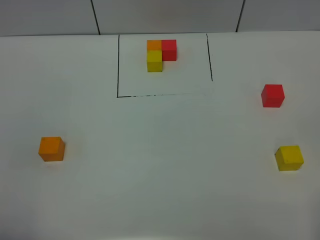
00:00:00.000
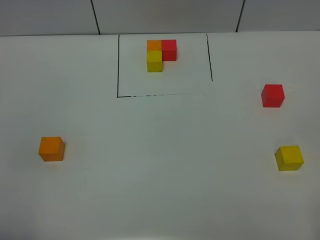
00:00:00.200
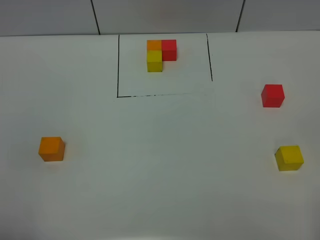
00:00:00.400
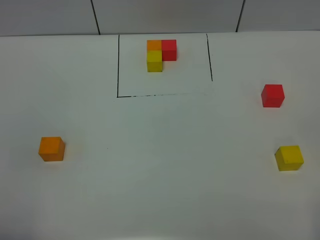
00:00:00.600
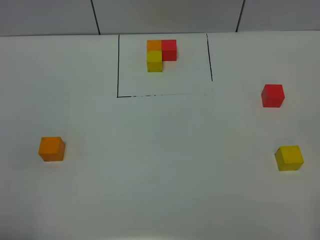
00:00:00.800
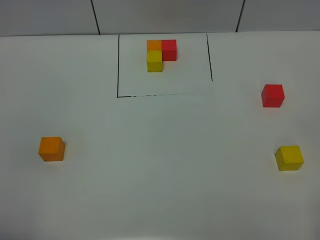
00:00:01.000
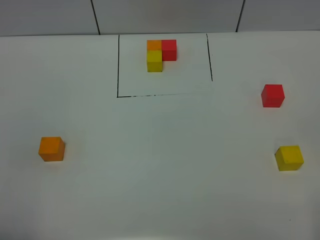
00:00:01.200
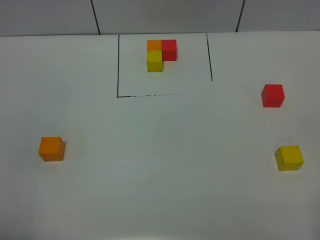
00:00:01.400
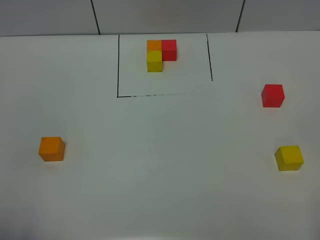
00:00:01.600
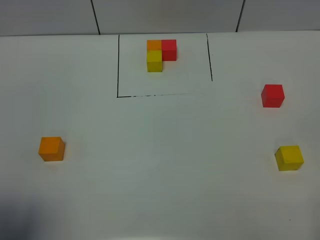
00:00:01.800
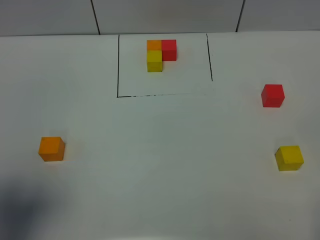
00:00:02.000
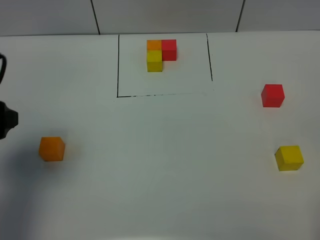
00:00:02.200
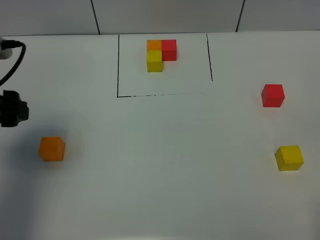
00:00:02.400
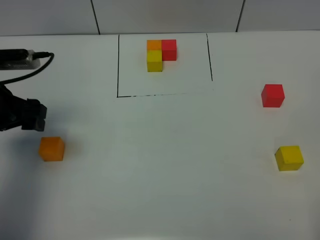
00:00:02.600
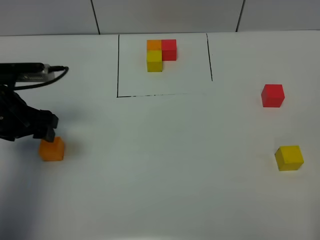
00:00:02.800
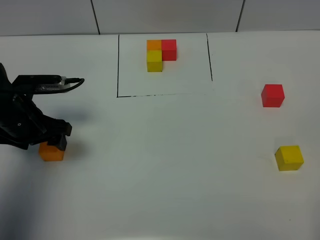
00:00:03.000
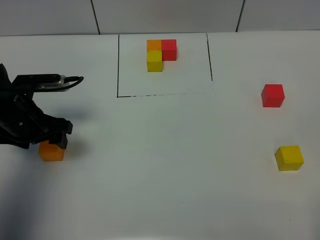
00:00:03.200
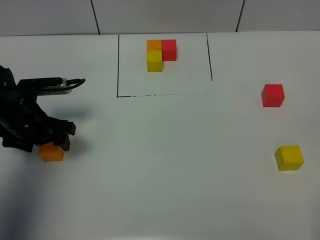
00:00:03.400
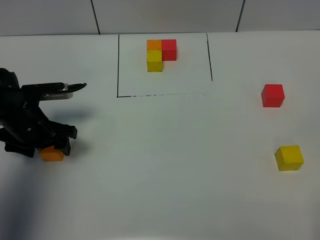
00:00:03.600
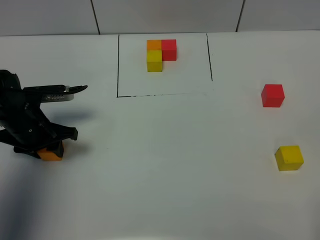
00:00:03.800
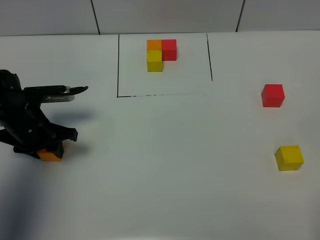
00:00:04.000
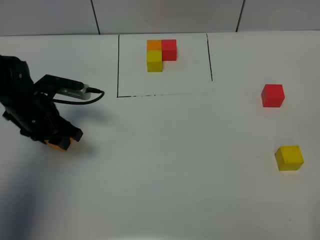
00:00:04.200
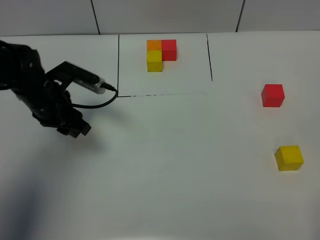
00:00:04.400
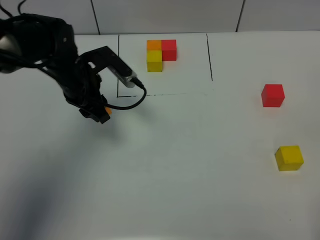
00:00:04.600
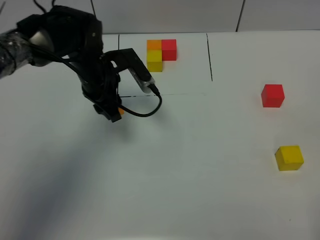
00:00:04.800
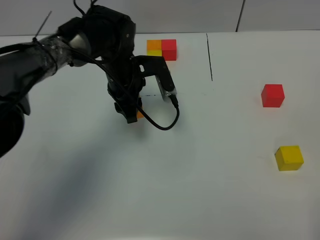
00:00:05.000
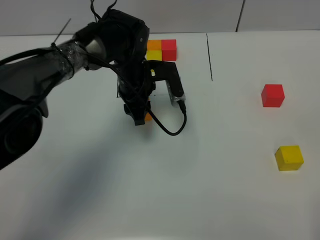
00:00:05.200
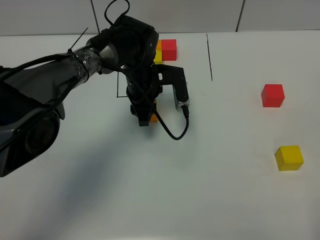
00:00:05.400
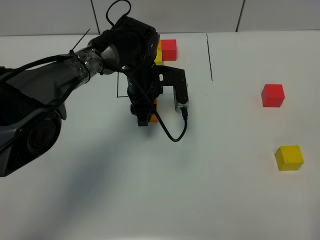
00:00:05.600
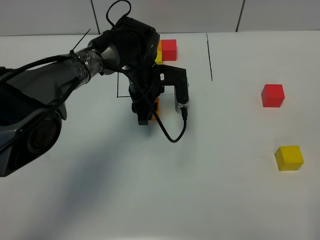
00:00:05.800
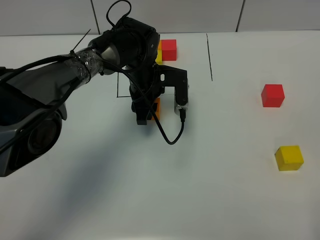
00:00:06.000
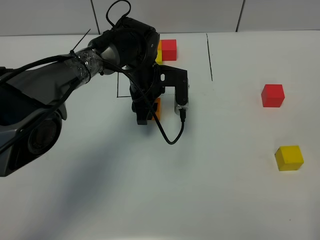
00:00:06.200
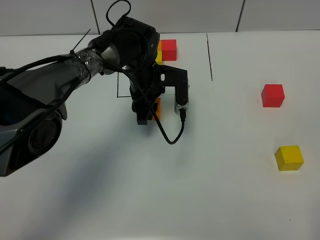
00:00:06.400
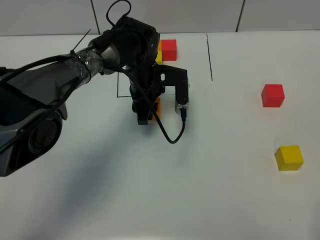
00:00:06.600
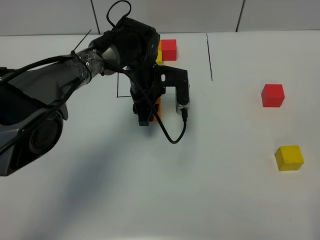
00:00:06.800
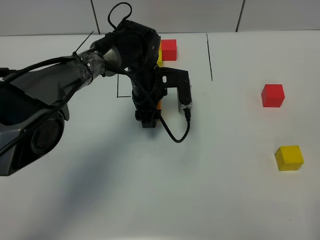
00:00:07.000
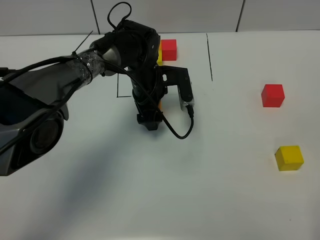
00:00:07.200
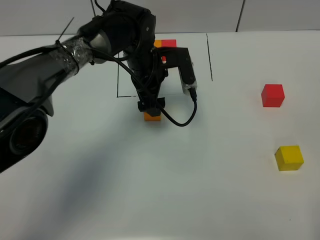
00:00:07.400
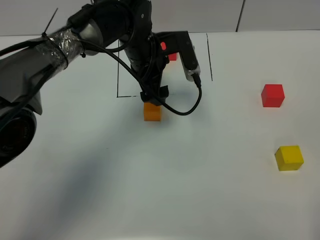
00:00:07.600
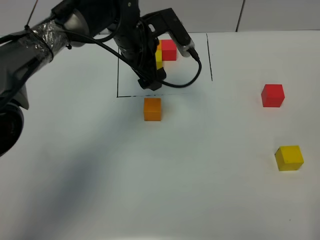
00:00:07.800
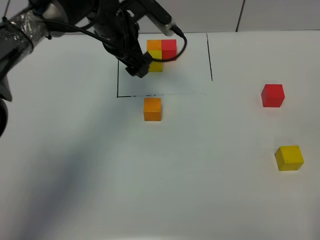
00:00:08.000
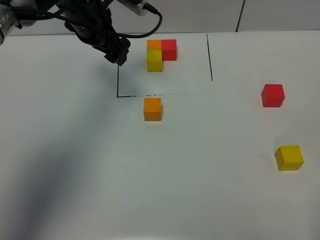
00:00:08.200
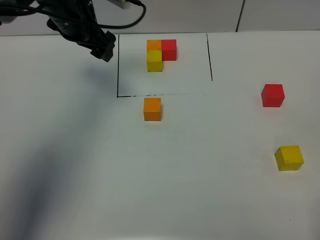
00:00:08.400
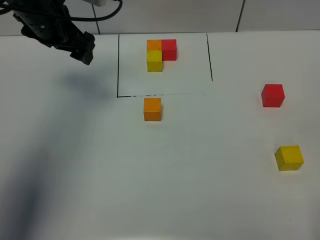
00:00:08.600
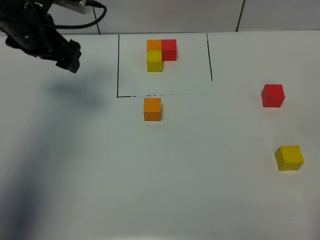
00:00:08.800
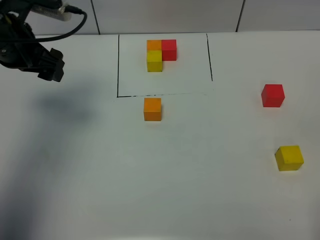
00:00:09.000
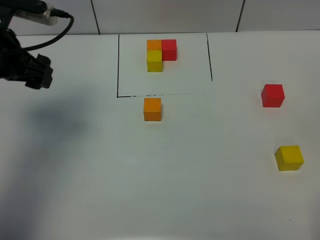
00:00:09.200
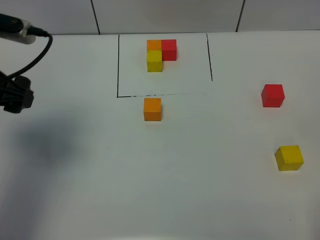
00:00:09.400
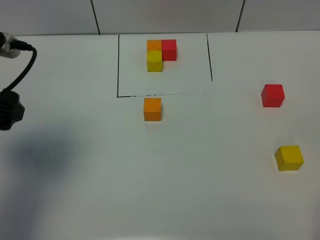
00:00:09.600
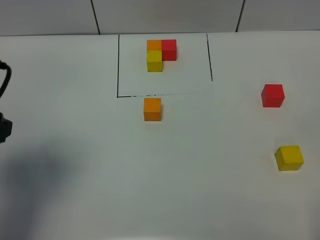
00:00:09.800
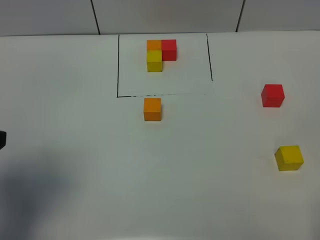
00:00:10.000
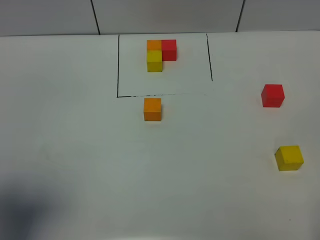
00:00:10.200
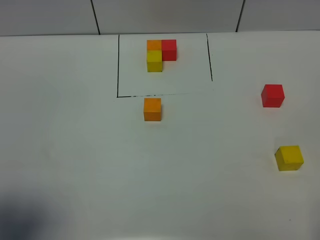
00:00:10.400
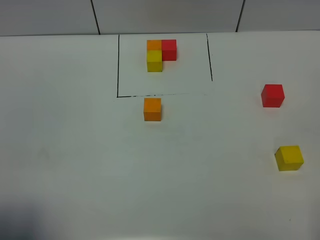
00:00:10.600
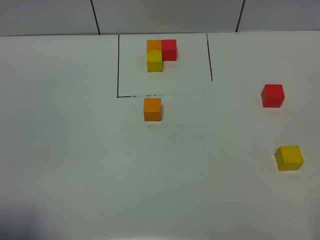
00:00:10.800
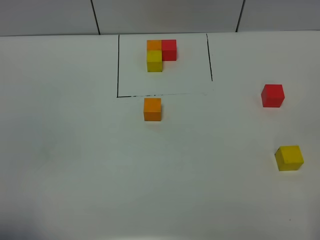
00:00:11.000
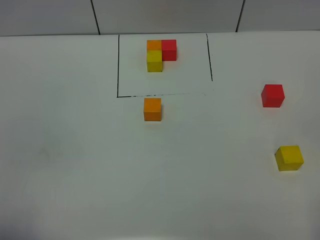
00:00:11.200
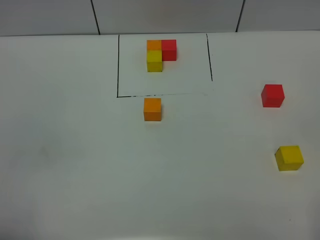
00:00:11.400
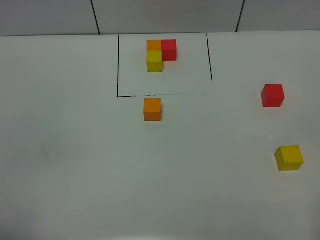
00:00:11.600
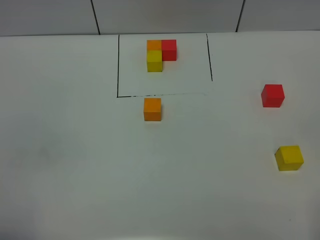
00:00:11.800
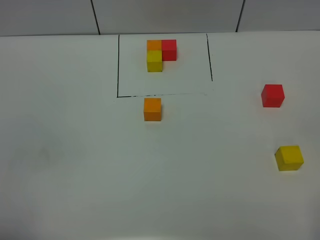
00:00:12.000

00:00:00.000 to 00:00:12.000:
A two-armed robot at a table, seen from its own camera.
Task of the whole recording: According to the building block template in front, assemble the scattered blocks together.
Step, 00:00:00.000 to 00:00:06.800: Put the orange build block in the center of the table.
00:00:01.600 to 00:00:03.000: The left gripper travels forward and downward by approximately 35 cm.
00:00:03.000 to 00:00:04.400: The left gripper travels to the right by roughly 5 cm, and closes its fingers.
00:00:04.400 to 00:00:06.000: The left gripper shifts approximately 20 cm to the right and forward.
00:00:06.000 to 00:00:07.600: The left gripper is displaced upward by roughly 10 cm, and opens up.
00:00:07.600 to 00:00:09.000: The left gripper shifts about 20 cm to the left.
00:00:09.000 to 00:00:10.400: The left gripper heads backward, covering approximately 30 cm.
00:00:10.400 to 00:00:12.000: The left gripper travels backward by roughly 10 cm.

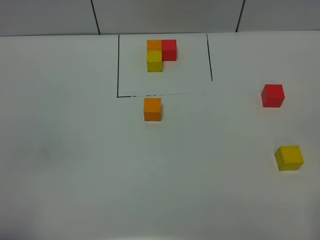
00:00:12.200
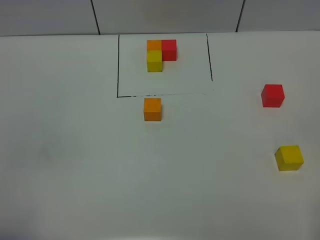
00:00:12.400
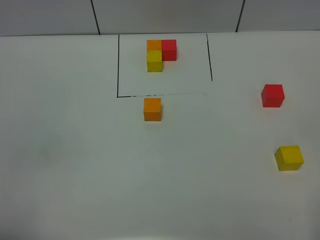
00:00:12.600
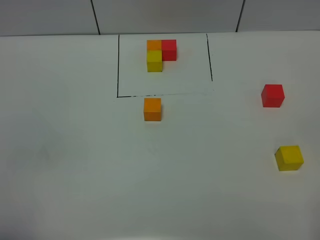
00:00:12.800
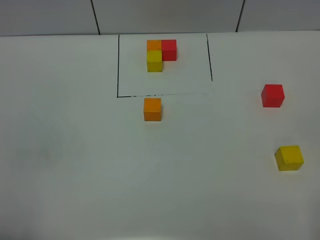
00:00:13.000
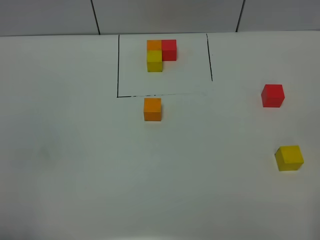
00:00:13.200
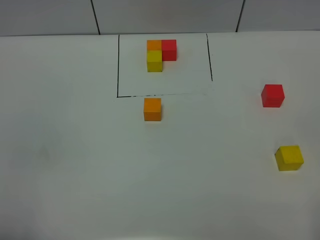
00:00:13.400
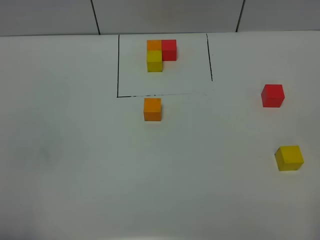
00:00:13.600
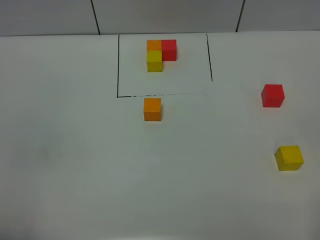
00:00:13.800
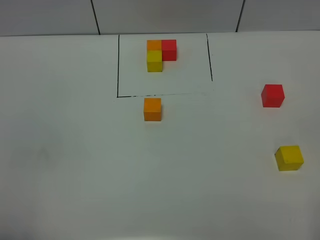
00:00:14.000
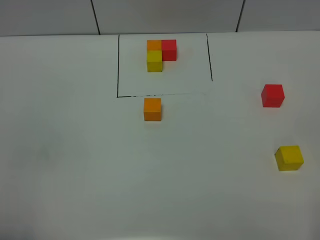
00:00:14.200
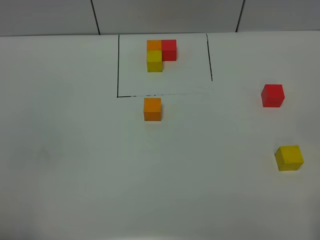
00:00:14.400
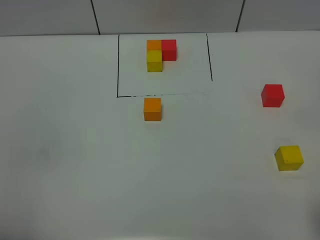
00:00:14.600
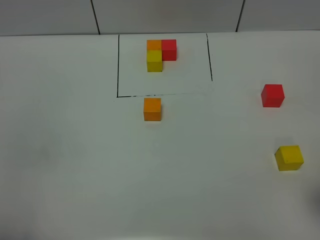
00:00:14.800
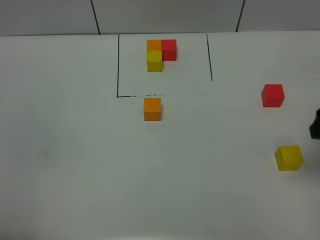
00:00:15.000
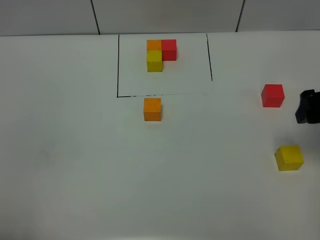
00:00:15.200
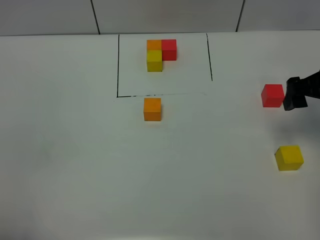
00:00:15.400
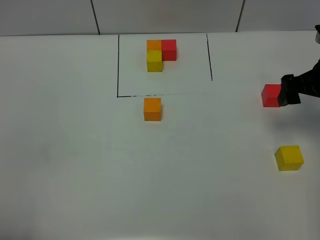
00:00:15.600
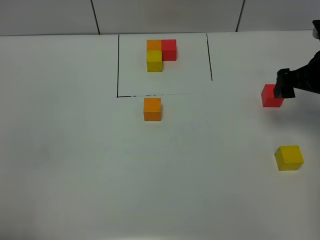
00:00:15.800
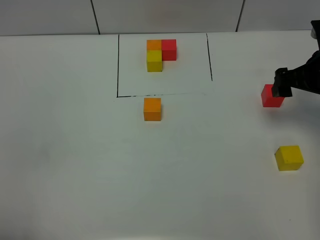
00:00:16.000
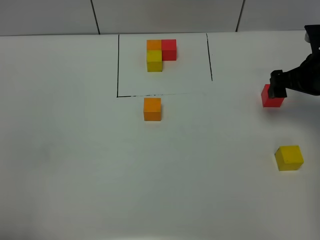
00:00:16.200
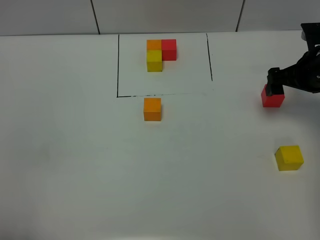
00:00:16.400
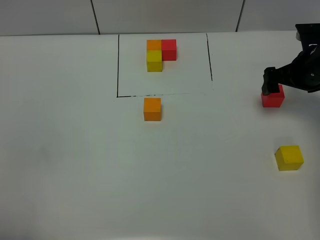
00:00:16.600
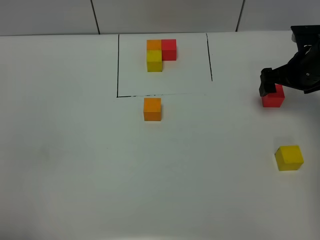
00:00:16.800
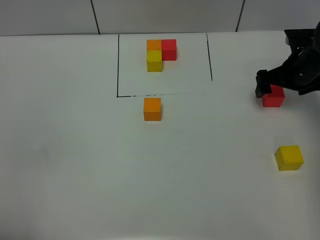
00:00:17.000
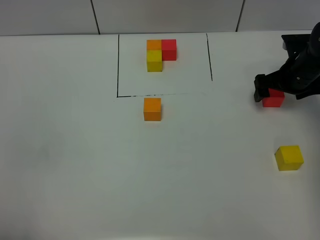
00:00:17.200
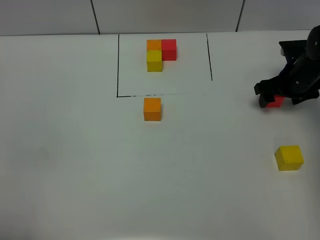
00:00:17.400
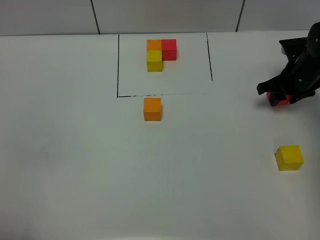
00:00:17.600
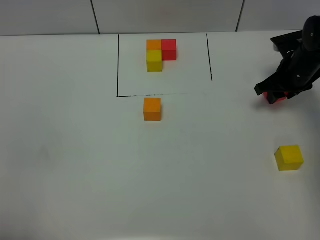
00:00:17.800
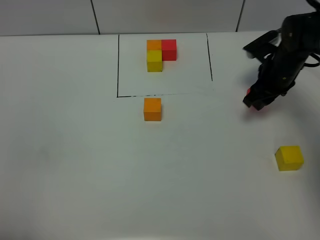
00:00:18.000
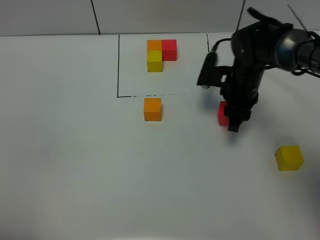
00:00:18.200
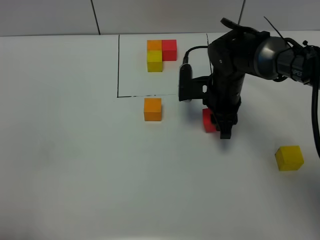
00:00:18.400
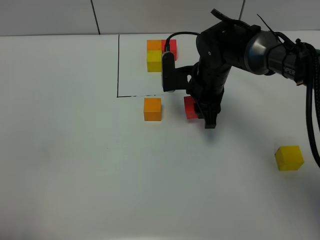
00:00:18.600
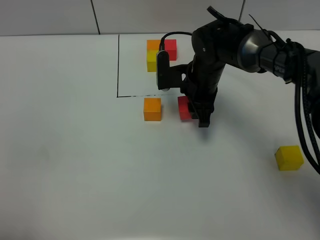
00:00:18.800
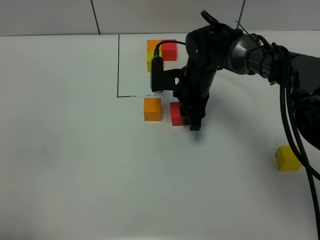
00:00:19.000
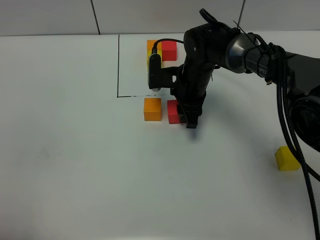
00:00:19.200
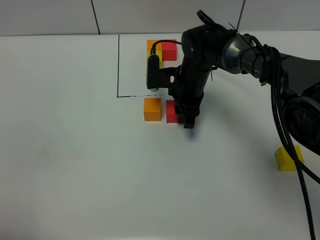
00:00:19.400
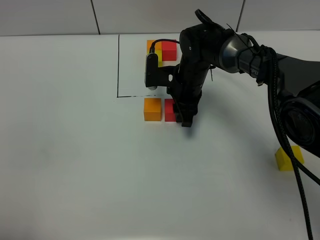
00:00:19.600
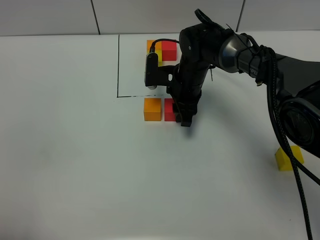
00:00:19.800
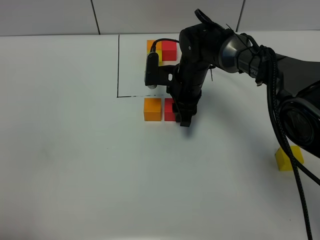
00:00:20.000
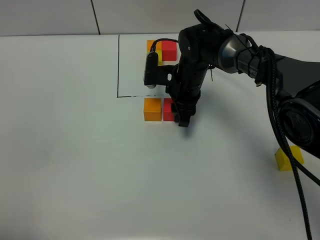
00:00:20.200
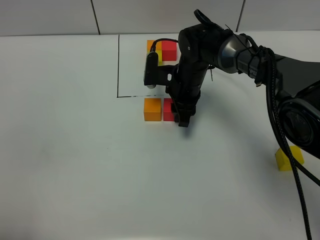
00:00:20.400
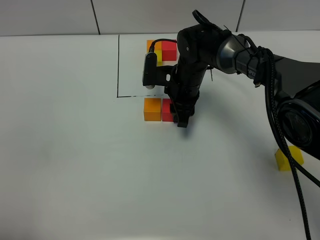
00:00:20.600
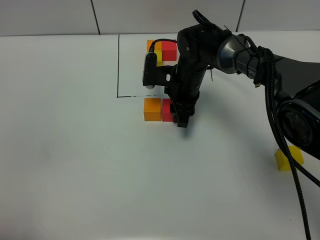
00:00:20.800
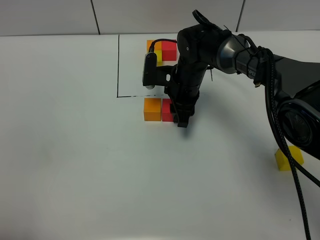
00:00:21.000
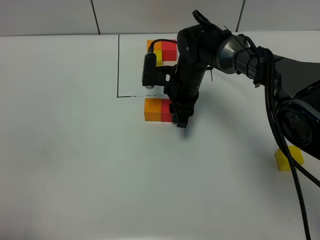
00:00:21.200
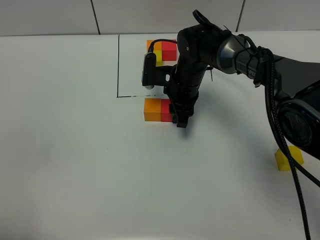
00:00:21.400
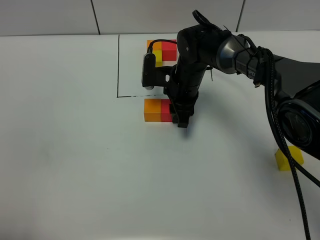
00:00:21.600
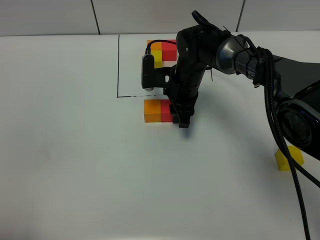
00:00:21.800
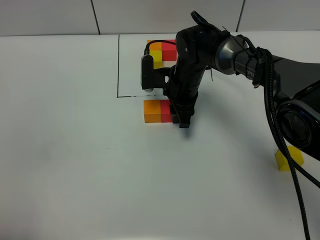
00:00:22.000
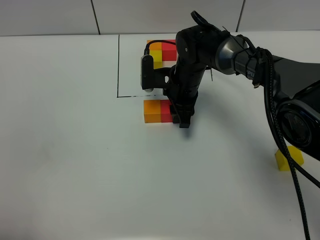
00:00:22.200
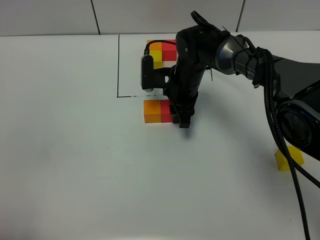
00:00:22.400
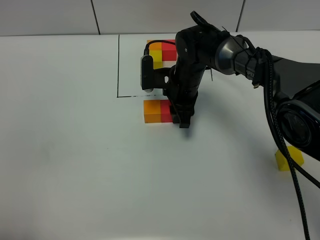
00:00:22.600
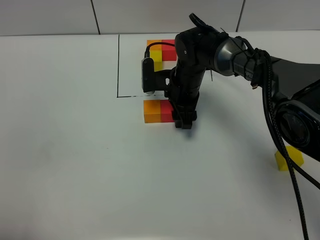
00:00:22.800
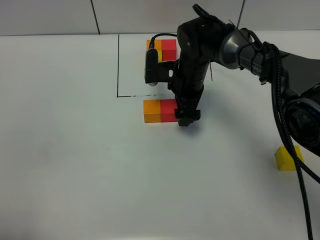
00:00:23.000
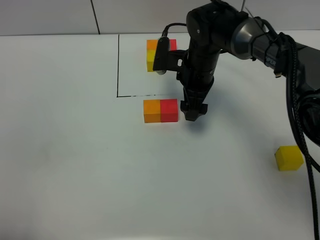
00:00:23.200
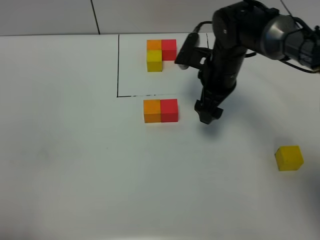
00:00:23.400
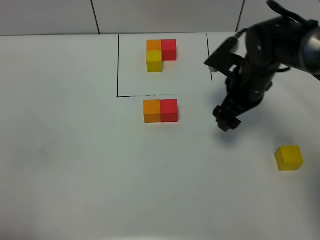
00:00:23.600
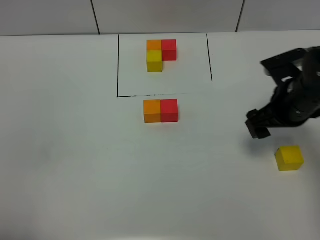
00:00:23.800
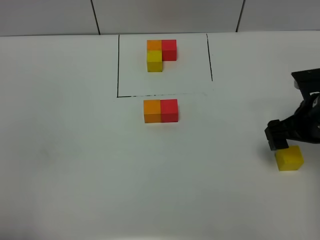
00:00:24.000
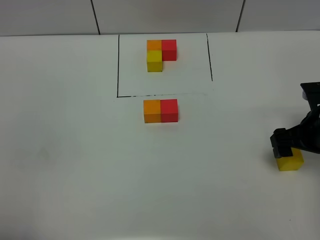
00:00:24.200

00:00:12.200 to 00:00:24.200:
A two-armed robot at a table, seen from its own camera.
Task of the whole recording: According to the building block template in front, assemble the scattered blocks together.
Step, 00:00:12.200 to 00:00:22.600: Put the red build block on the right of the orange build block.
00:00:13.800 to 00:00:15.200: The right gripper shifts about 25 cm forward.
00:00:15.200 to 00:00:16.600: The right gripper heads forward and downward, covering about 15 cm.
00:00:16.600 to 00:00:18.200: The right gripper goes about 15 cm to the left, and closes its fingers.
00:00:18.200 to 00:00:19.800: The right gripper moves to the left, some 10 cm.
00:00:19.800 to 00:00:21.200: Both grippers stay about where they are.
00:00:21.200 to 00:00:22.600: The grippers move only a little.
00:00:22.600 to 00:00:24.200: The right gripper travels to the right and backward by about 25 cm, and opens up.
